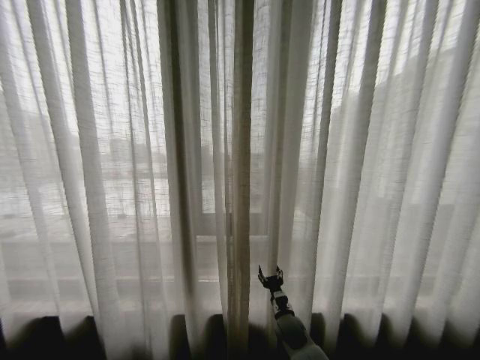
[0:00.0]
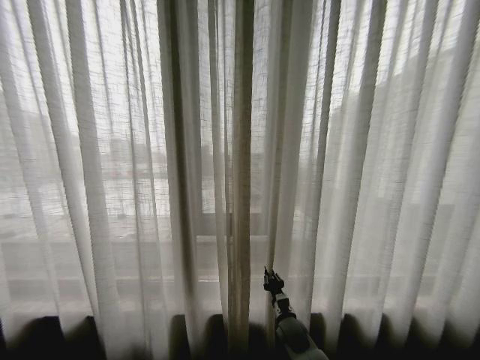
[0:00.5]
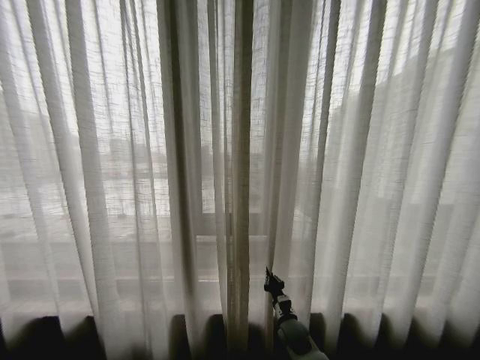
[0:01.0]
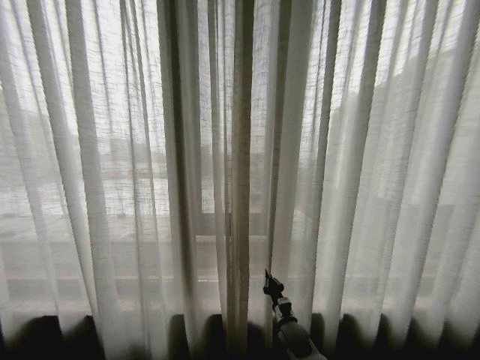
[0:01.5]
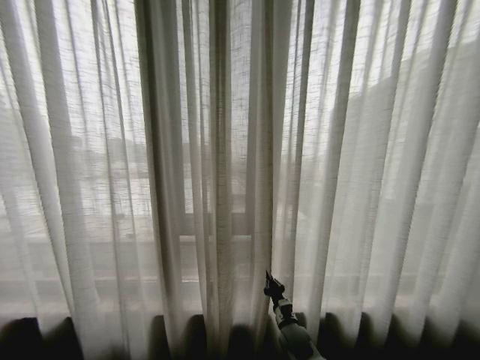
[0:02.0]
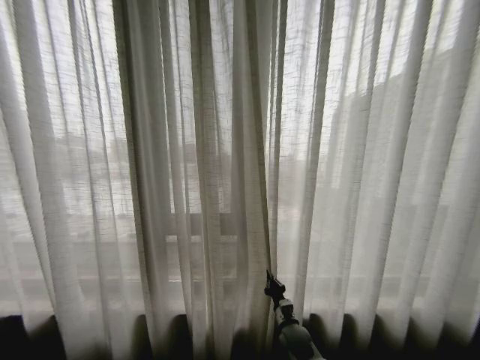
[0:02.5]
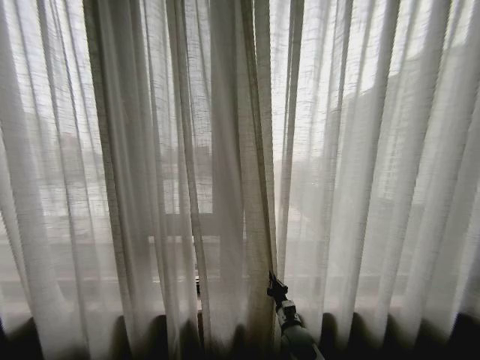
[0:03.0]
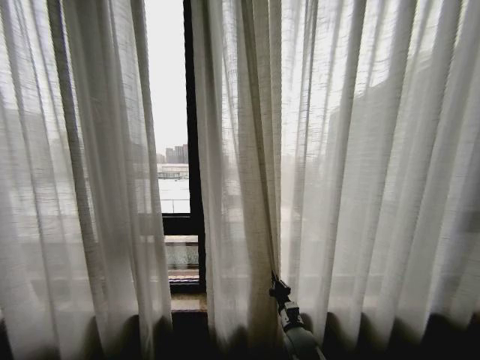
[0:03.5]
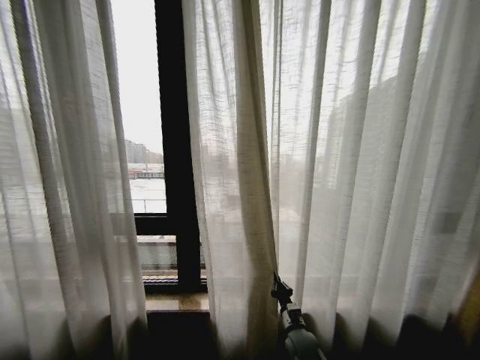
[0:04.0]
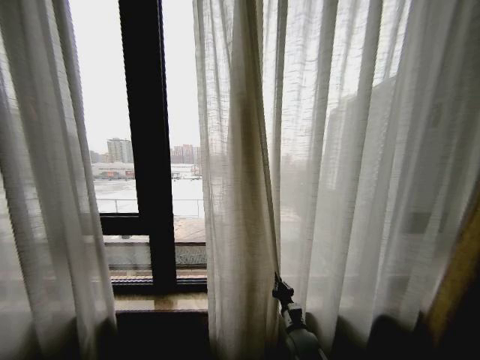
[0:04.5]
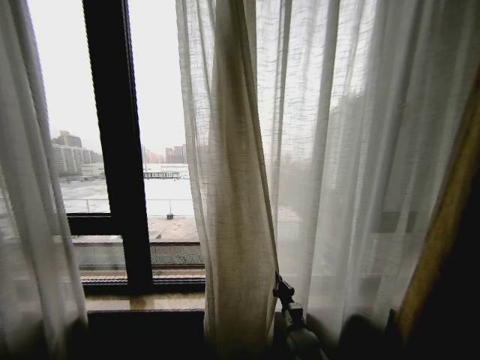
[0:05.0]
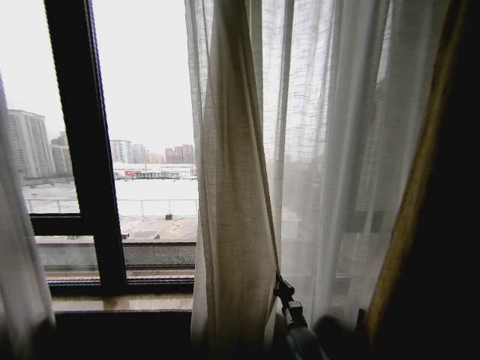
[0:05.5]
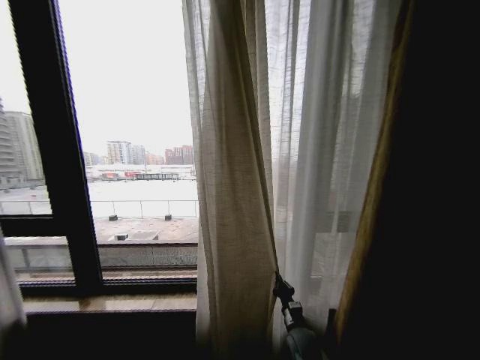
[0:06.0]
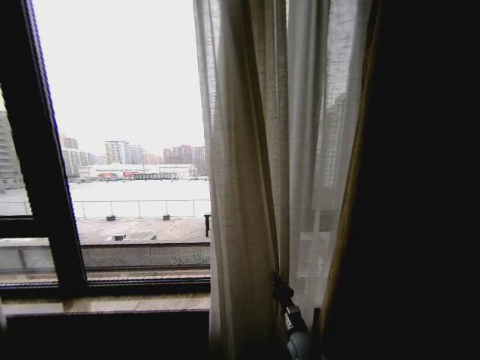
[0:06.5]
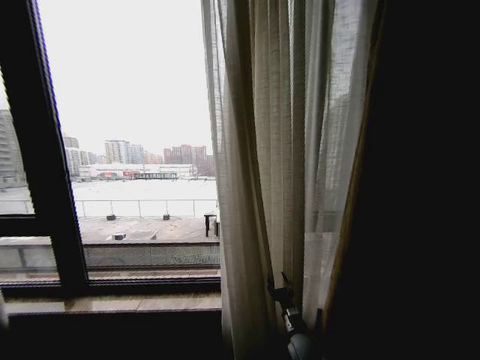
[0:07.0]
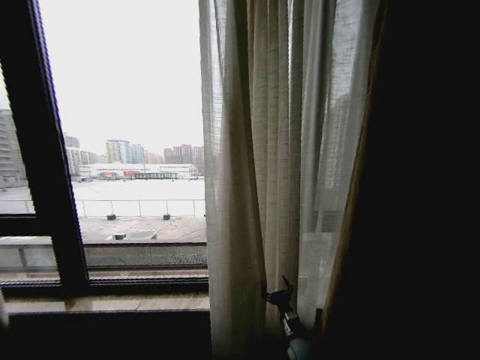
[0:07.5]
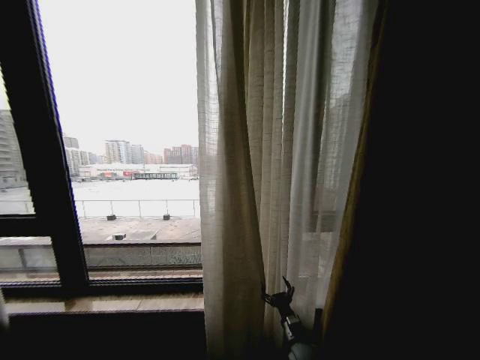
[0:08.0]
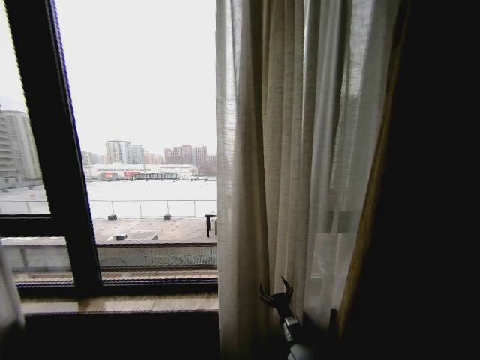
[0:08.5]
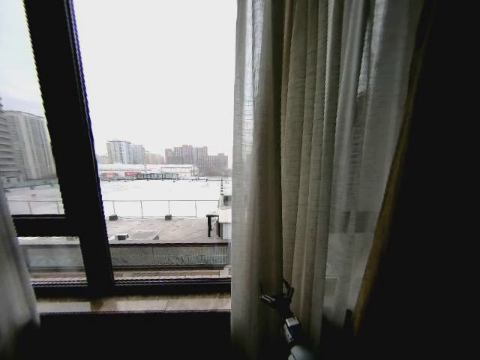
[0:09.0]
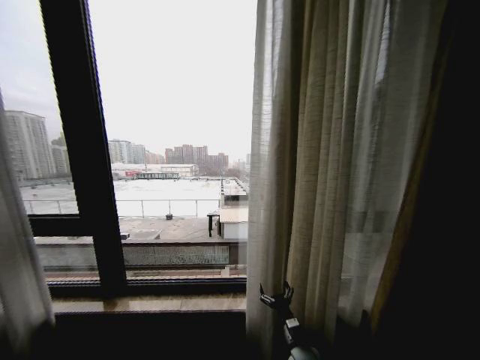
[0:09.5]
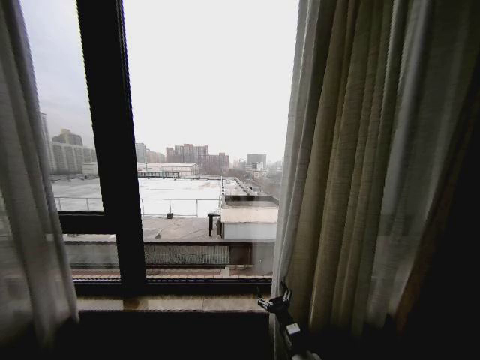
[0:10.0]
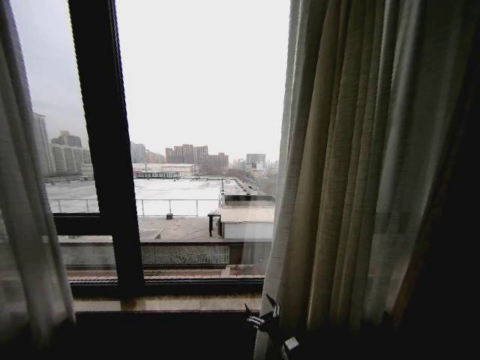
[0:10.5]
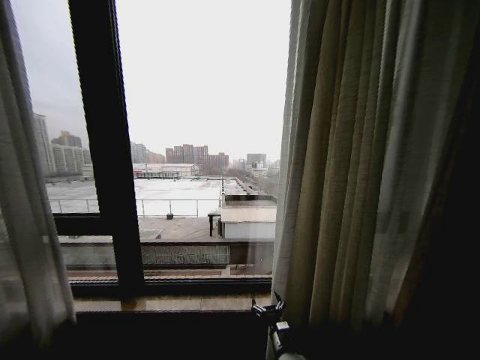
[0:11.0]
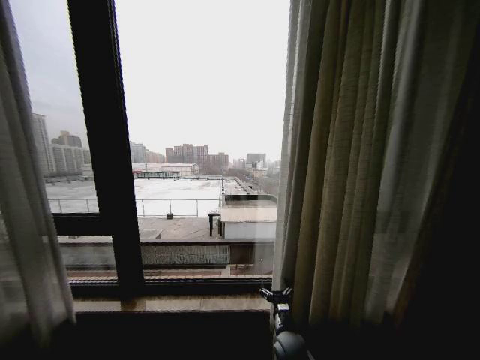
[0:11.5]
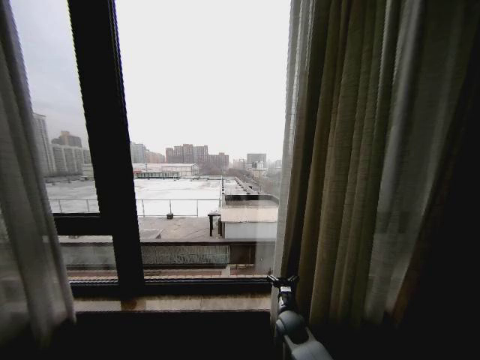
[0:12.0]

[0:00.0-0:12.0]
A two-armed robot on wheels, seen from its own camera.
Task of the whole recording: Open the curtains by pulling them apart, changing their state from closed to fully open.
0:00.0 to 0:02.0: The right gripper closes.
0:06.0 to 0:08.0: The right gripper opens up.
0:10.0 to 0:12.0: The right gripper goes approximately 10 cm forward.

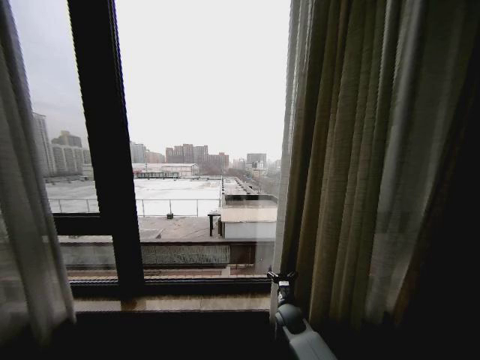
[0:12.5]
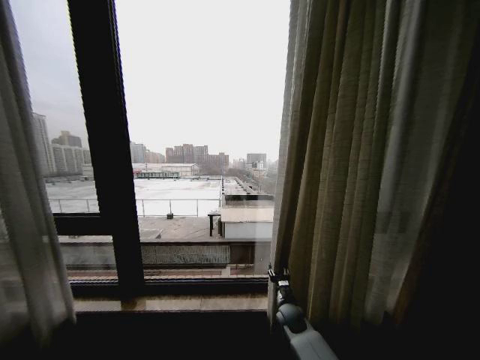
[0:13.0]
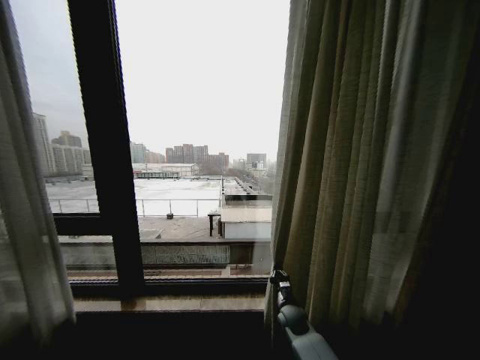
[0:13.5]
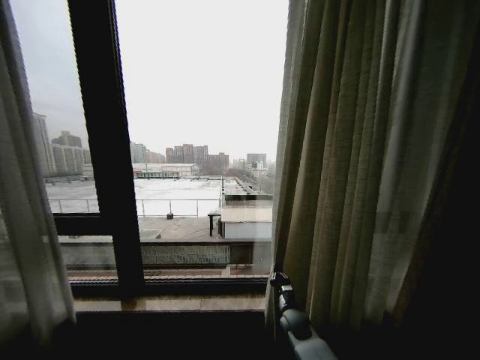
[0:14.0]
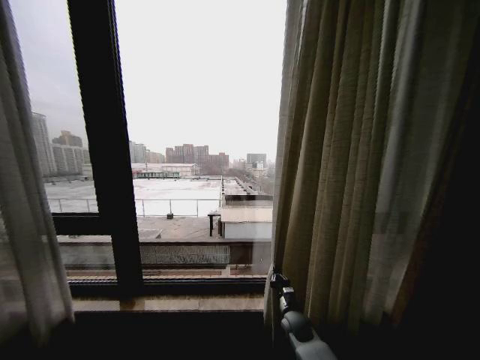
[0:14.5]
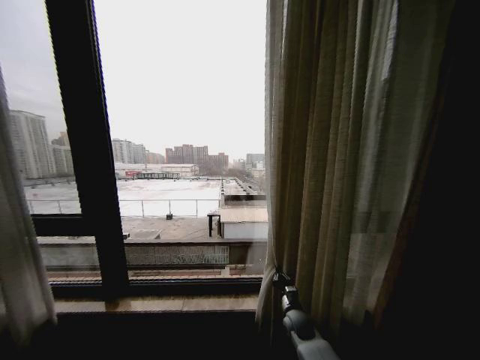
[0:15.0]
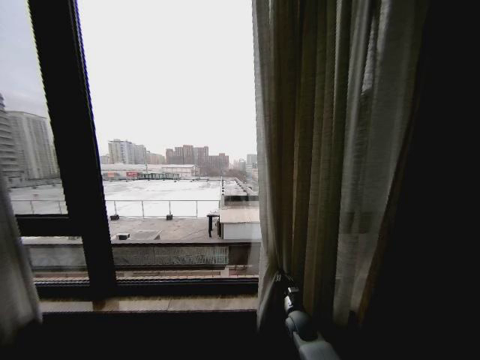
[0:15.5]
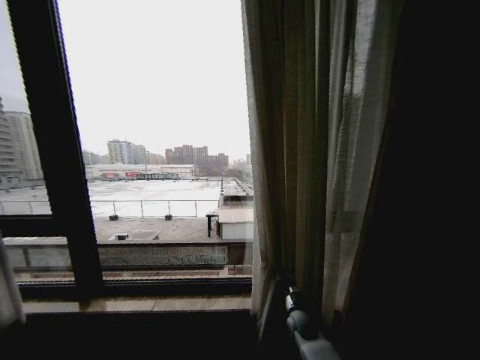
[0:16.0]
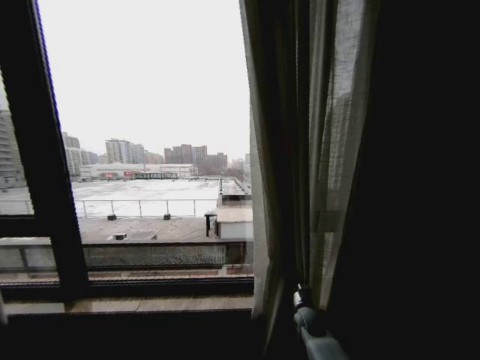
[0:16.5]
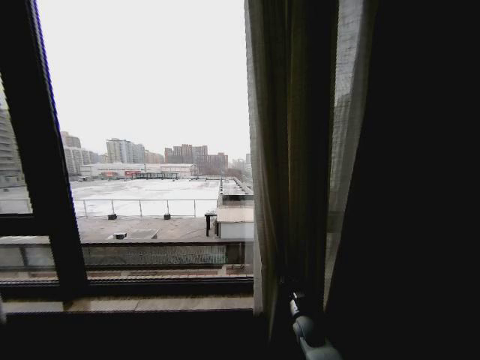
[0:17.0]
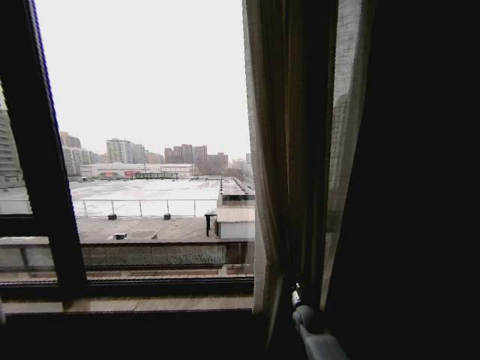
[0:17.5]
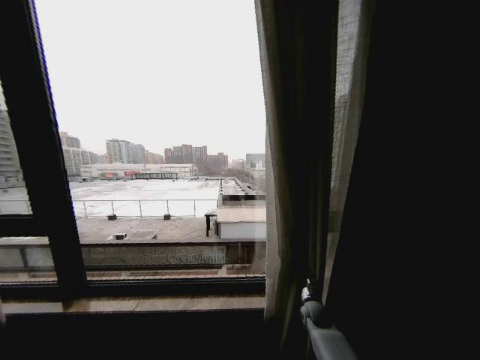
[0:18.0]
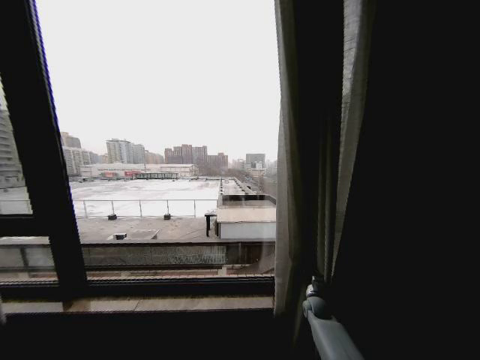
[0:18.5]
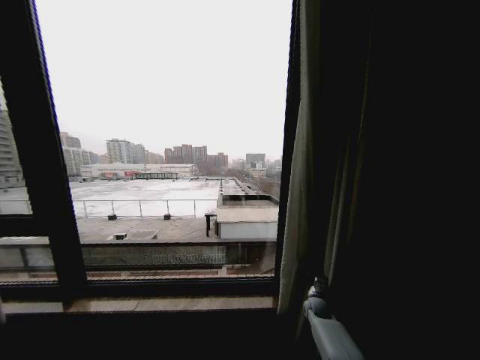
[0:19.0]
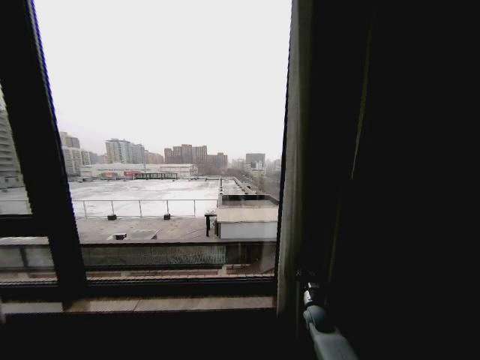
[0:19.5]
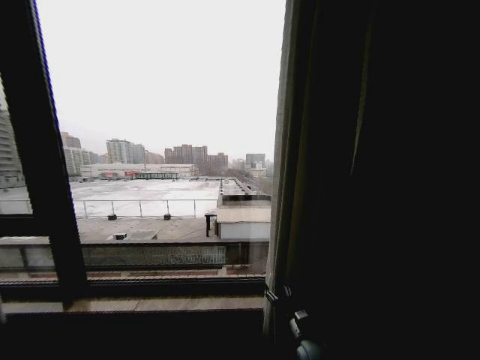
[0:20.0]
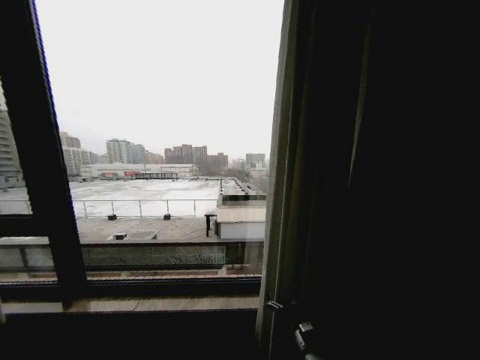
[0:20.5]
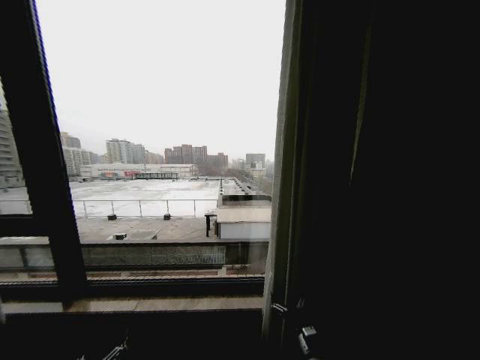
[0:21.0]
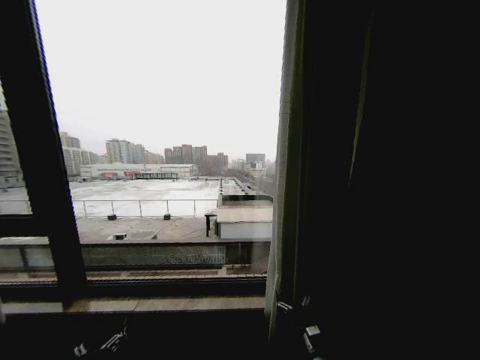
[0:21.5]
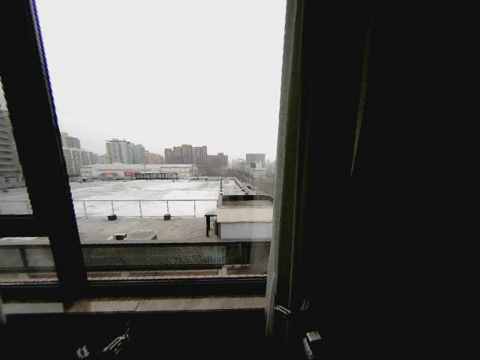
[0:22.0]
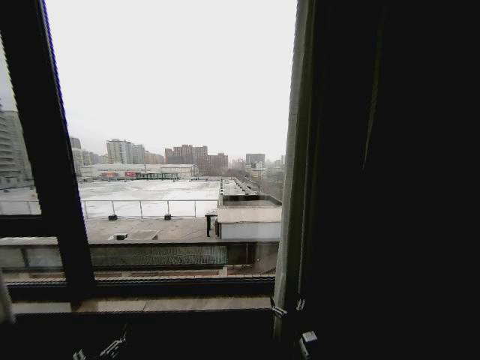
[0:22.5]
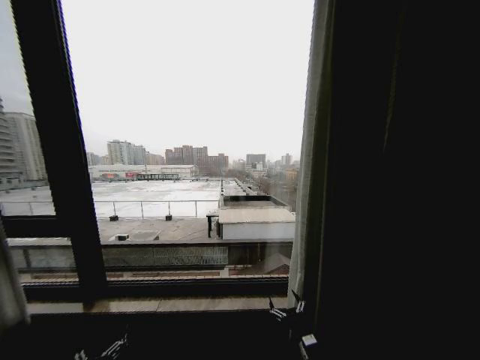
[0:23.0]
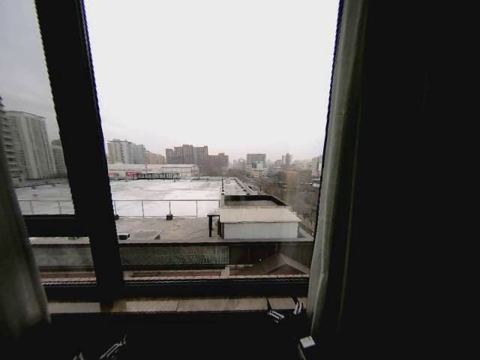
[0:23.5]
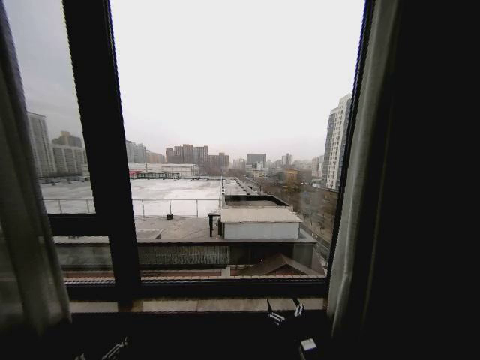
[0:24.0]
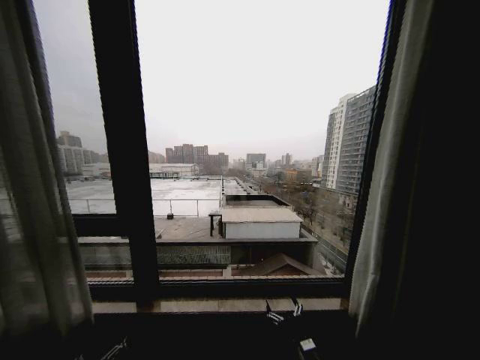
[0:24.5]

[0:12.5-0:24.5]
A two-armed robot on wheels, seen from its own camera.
Task of the whole recording: Open the curtains by pulling them apart, changing their state from closed to fully open.
0:12.5 to 0:14.5: The right gripper closes its fingers.
0:14.5 to 0:16.5: The right gripper is displaced to the right by approximately 5 cm.
0:16.5 to 0:18.5: The right gripper heads to the right, covering approximately 5 cm.
0:18.5 to 0:20.5: The right gripper goes about 20 cm backward and to the left, and opens its fingers.
0:20.5 to 0:22.5: The left gripper shifts about 10 cm upward.

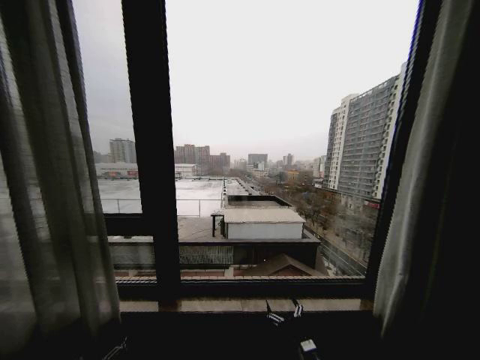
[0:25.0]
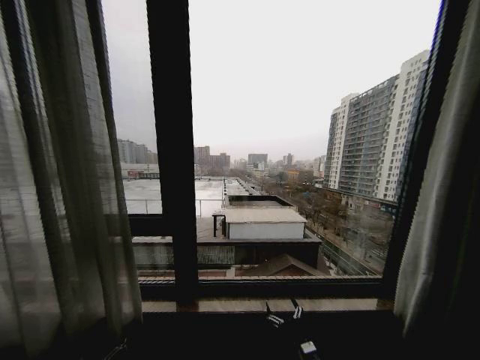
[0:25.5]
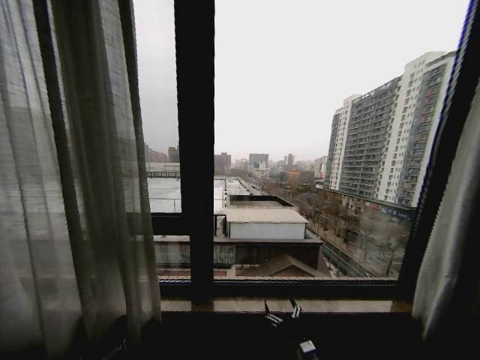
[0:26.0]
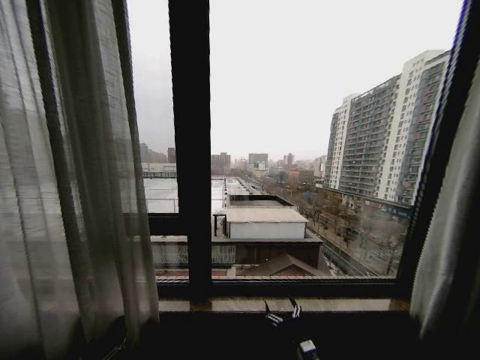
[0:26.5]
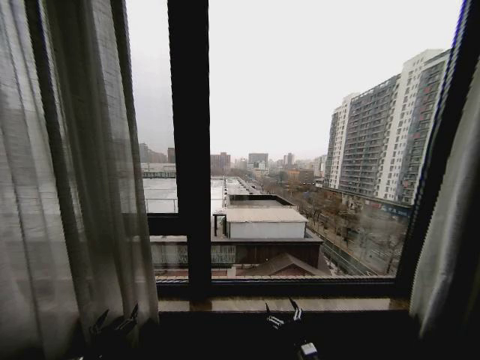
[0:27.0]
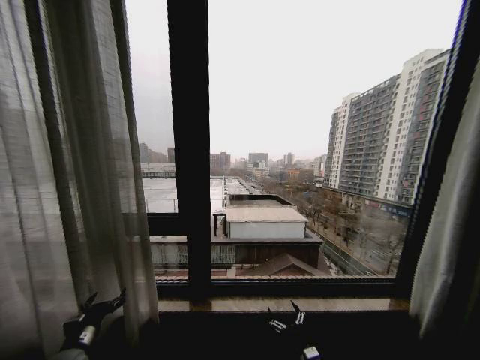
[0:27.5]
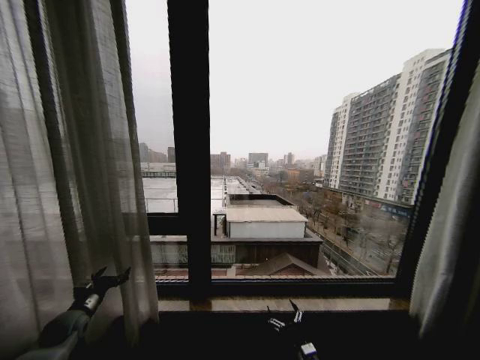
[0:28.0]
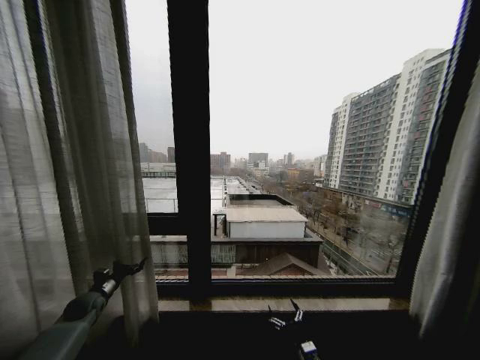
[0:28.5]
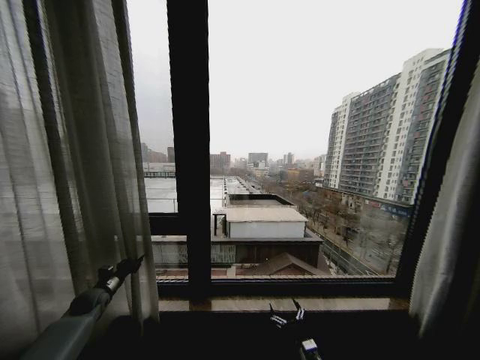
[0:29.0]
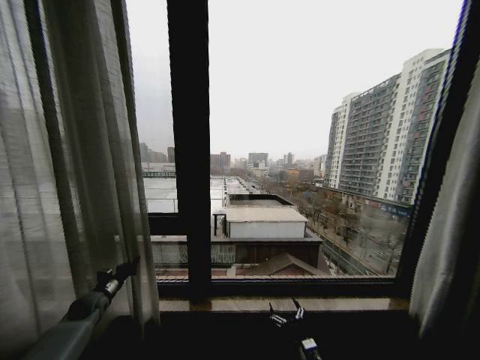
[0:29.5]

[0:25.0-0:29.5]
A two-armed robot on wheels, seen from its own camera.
Task of the whole recording: Open the curtains by pulling them apart, changing their state from closed to fully open.
0:25.0 to 0:27.0: The left gripper moves forward, roughly 5 cm.
0:27.0 to 0:29.5: The left gripper travels forward and to the left by some 25 cm, and closes up.
